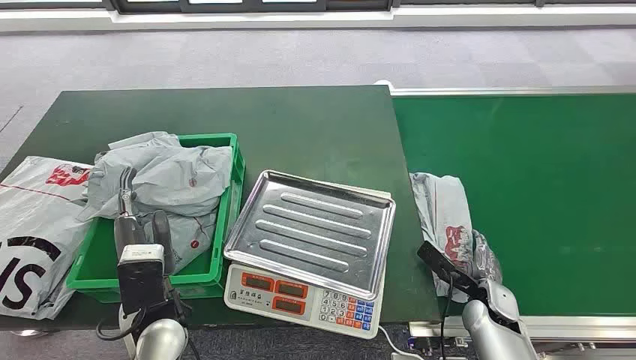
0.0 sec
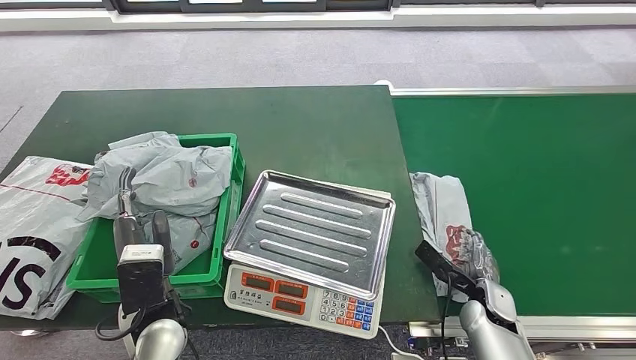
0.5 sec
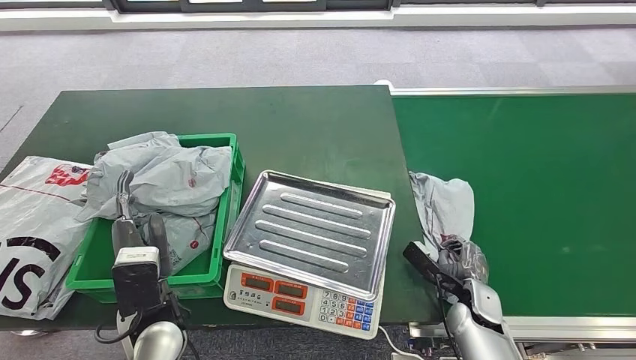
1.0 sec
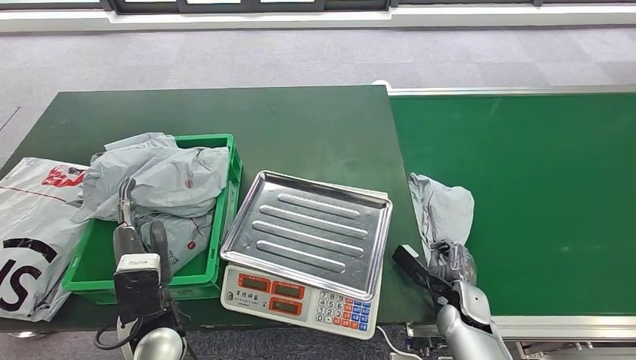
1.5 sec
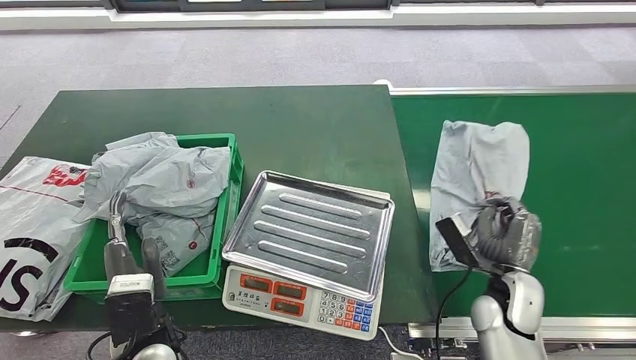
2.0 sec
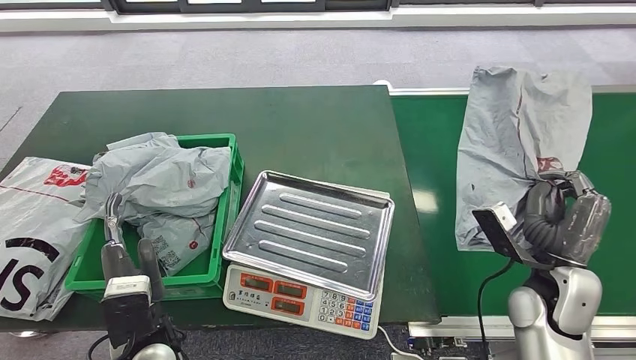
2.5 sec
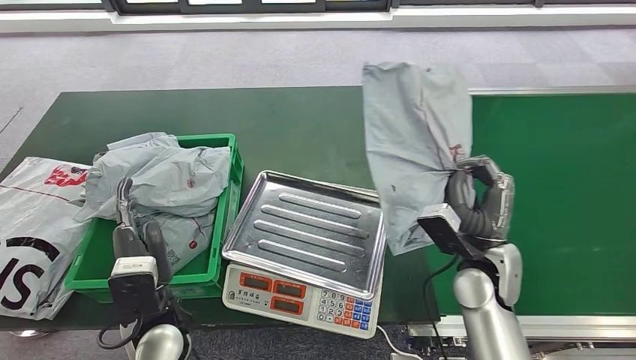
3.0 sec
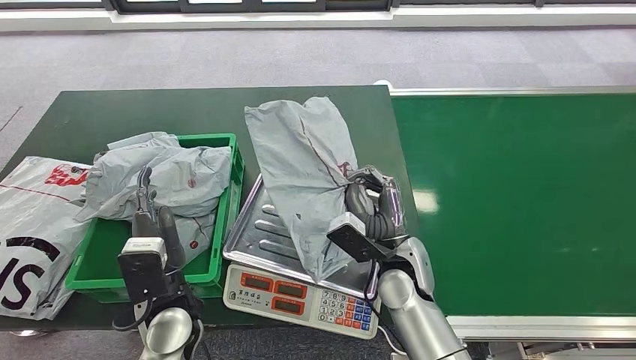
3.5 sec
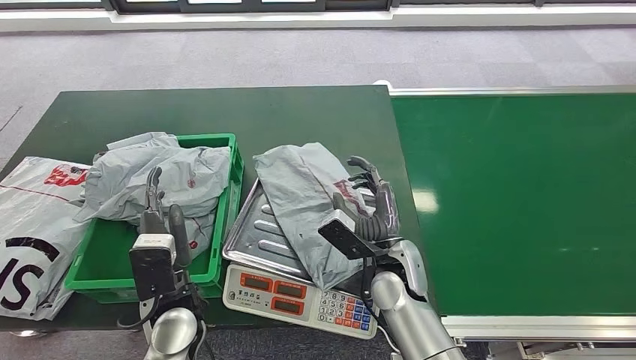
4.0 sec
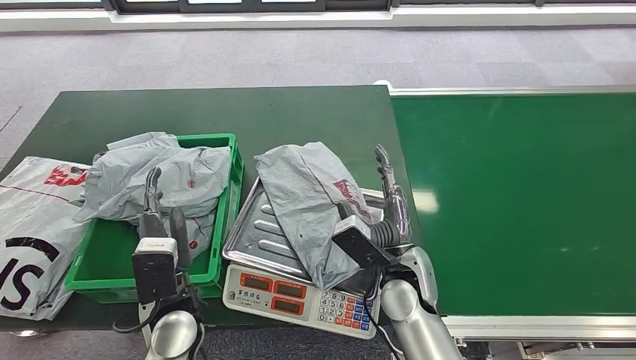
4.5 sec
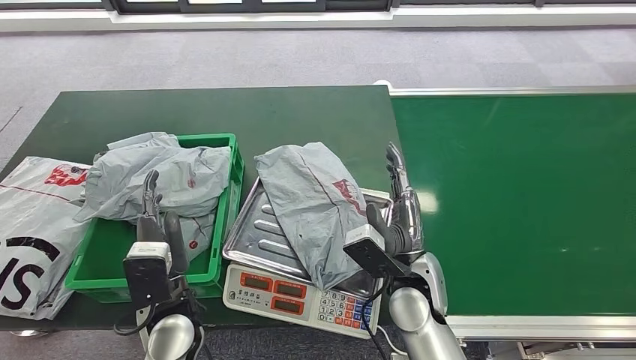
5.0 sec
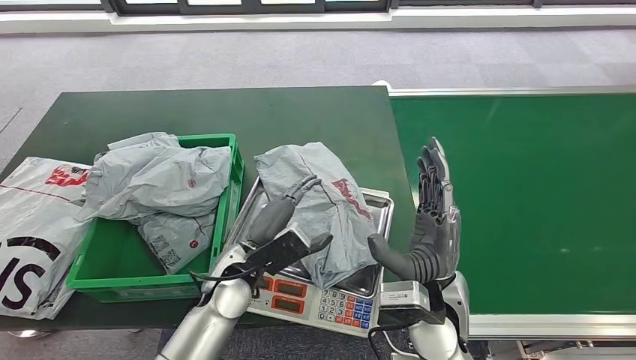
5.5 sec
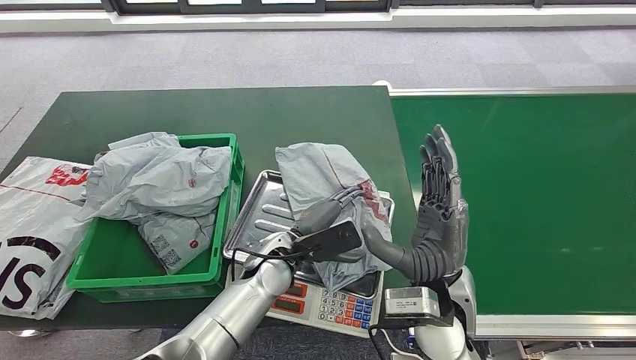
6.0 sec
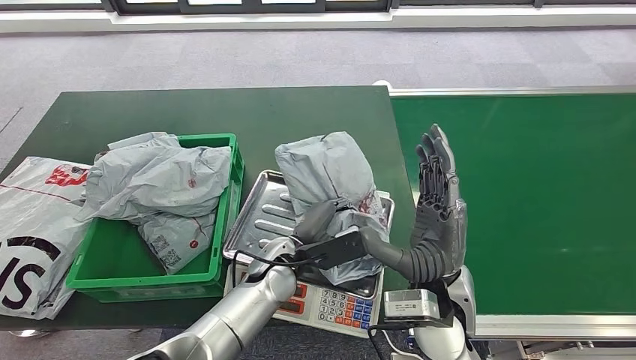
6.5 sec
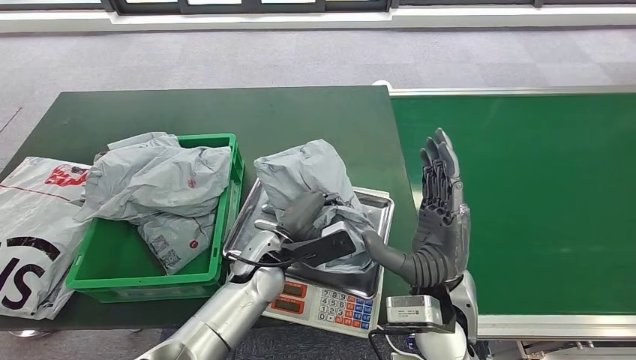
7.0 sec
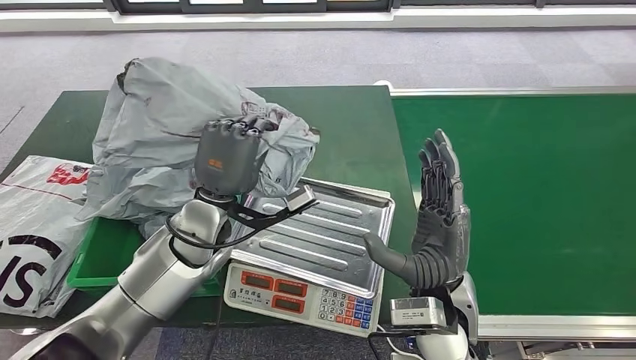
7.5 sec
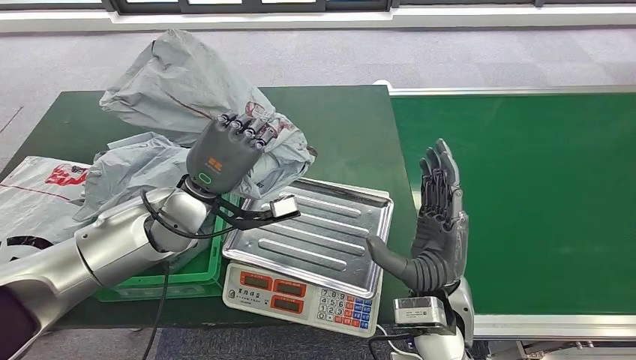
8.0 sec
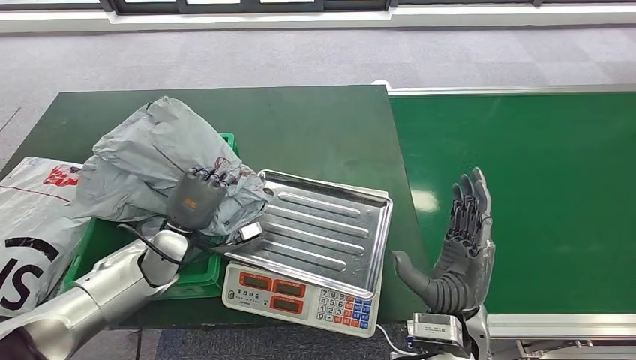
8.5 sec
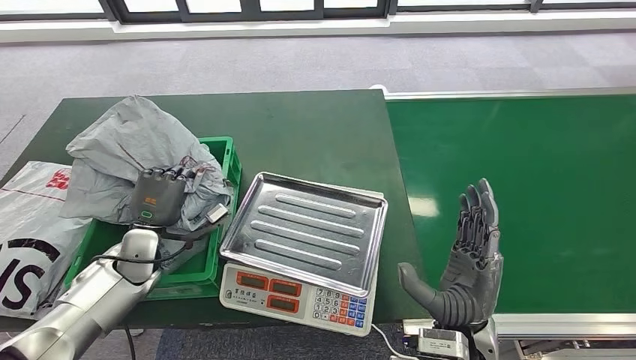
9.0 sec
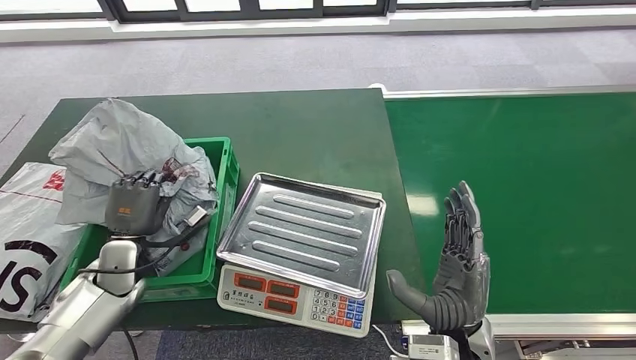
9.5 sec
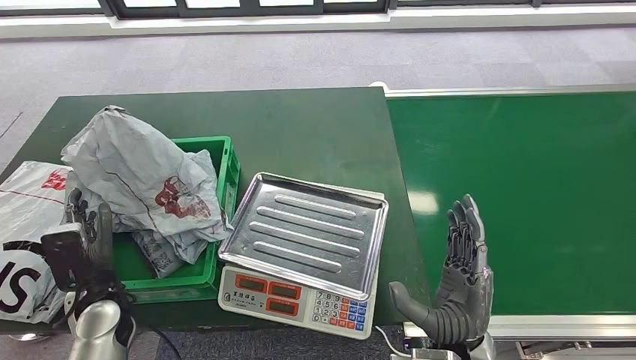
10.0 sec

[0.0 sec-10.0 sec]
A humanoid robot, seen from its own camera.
Step, 0.0 sec to 2.5 sec: Pick up the package from the conveyor belt.
Step, 3.0 sec to 4.5 sec: Place the package onto the inbound machine.
Step, 5.0 sec to 7.5 sec: Pick up the package from the inbound machine.
Step, 8.0 sec to 10.0 sec: Place the package into the parcel locker.
4.0 sec to 6.0 sec: The left hand is displaced to the right and forward by roughly 15 cm. Meanwhile the right hand is displaced upward and backward by some 10 cm.
